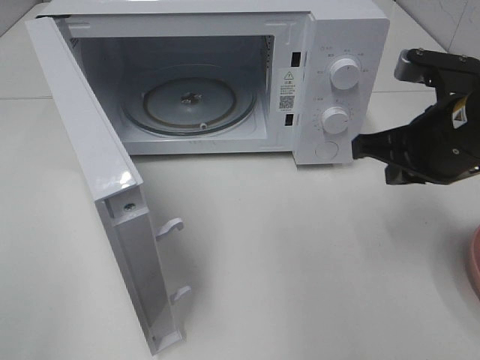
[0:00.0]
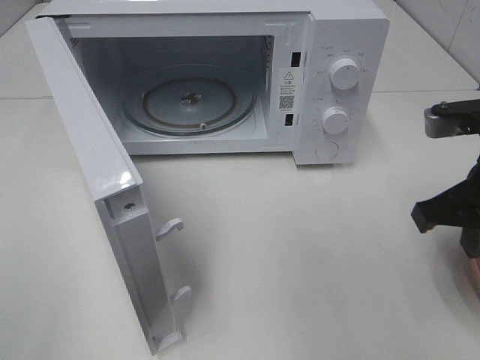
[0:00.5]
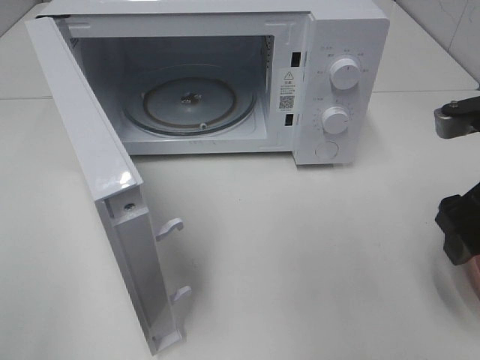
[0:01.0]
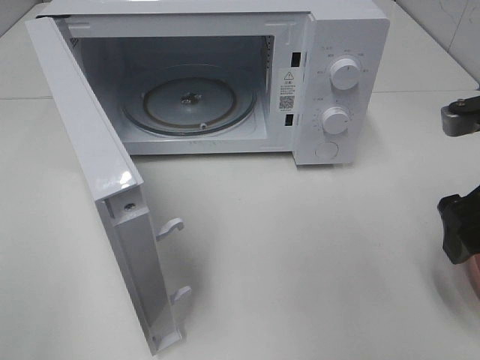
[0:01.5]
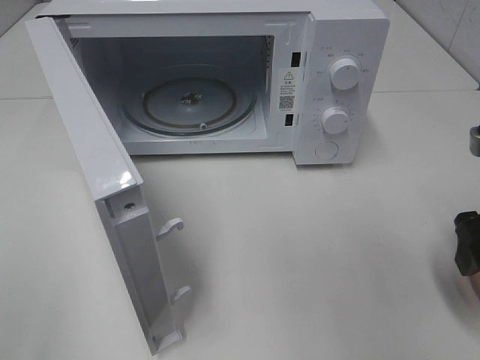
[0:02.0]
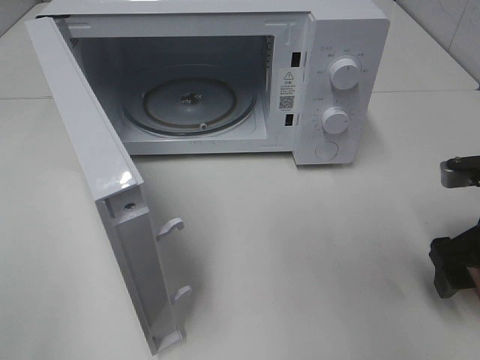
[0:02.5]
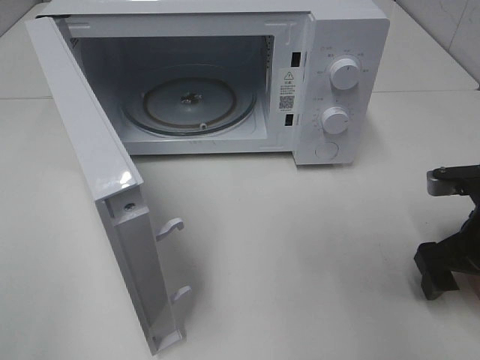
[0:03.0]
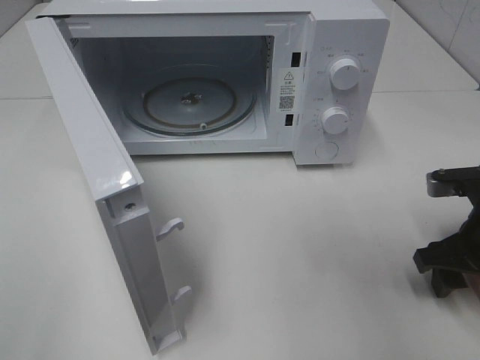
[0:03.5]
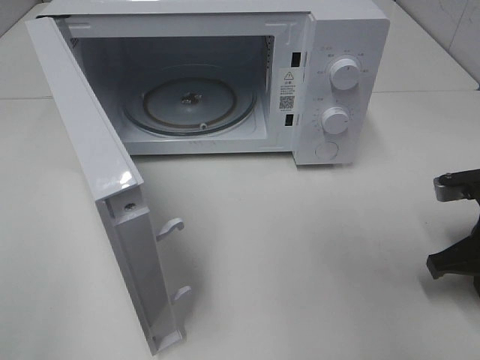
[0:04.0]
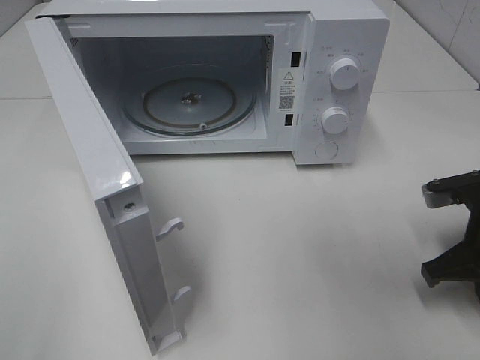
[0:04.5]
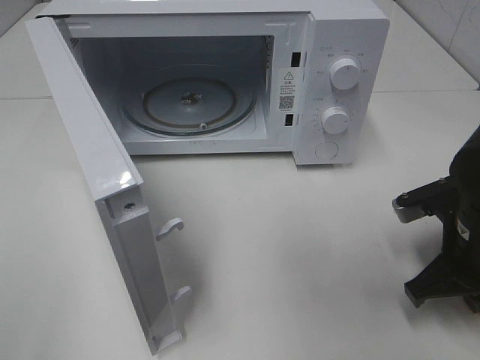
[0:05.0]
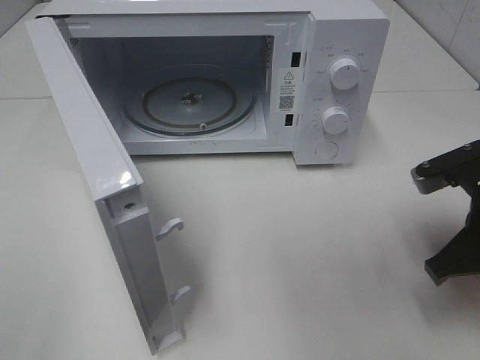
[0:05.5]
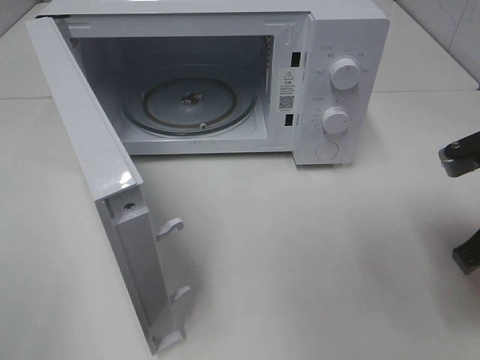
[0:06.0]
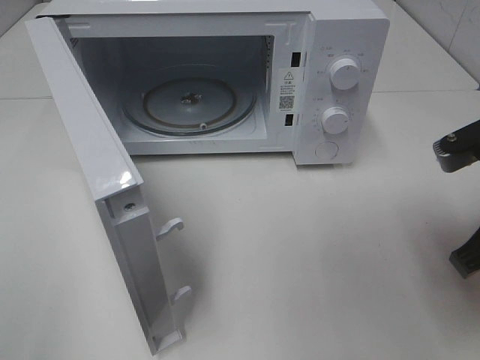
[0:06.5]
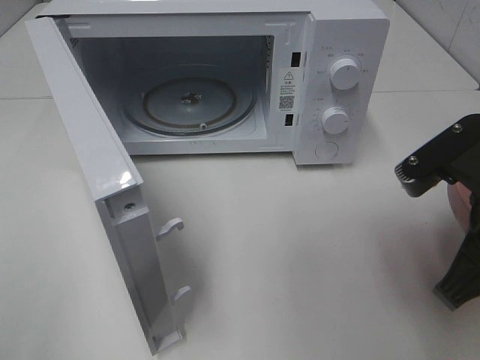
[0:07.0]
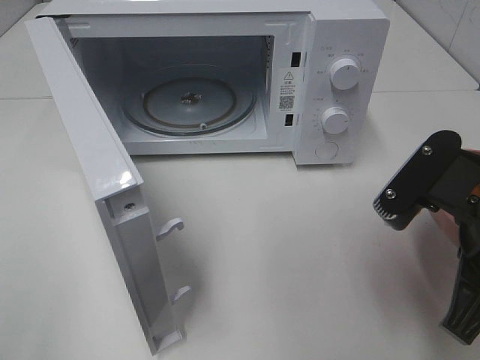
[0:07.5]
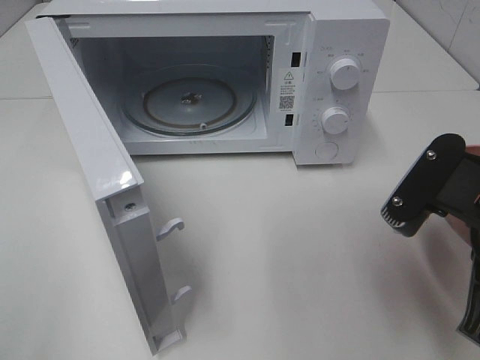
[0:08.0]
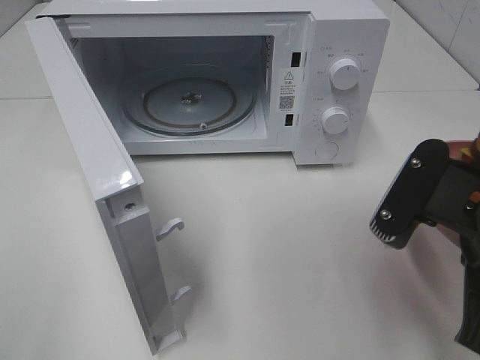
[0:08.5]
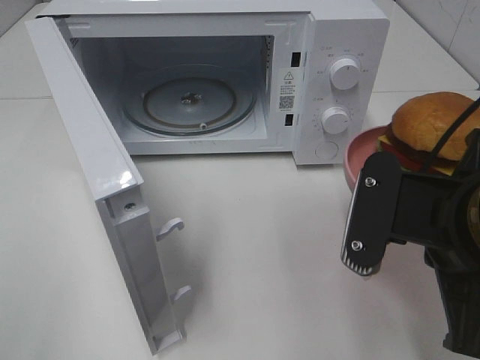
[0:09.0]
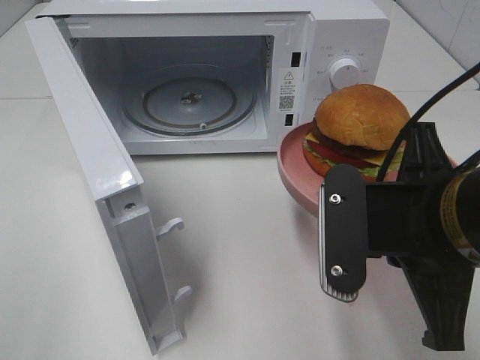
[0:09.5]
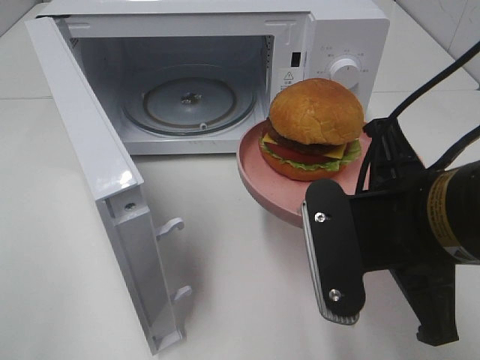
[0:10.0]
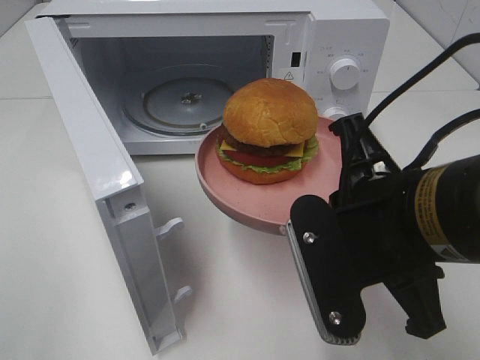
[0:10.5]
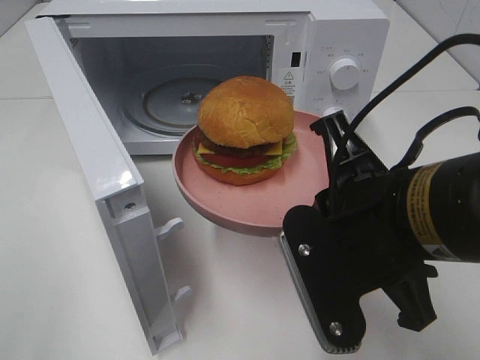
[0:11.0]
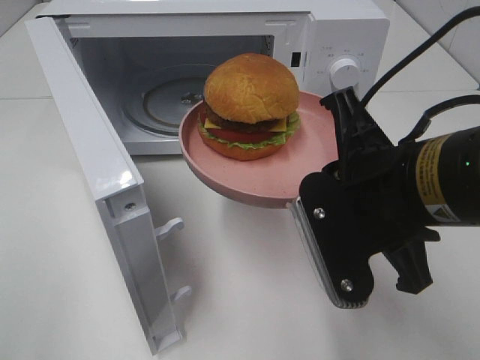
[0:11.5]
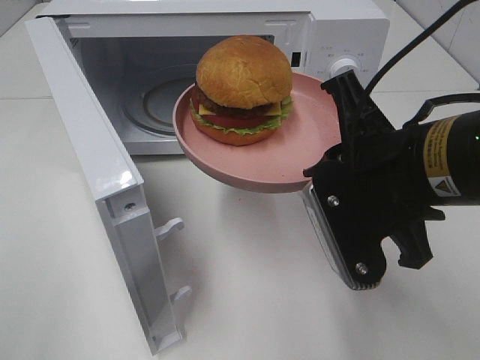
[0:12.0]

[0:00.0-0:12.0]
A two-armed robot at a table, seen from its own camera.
Task of the whole recording: Heat the burger.
Step, 0.0 to 4.0 s: Right hand: grab the plate with the hamburger.
0.0 to 2.0 s: The right gripper heads to the right and backward, covering approximately 10 cm, and opens up.
2.0 to 4.0 s: The right gripper travels downward by about 10 cm, and closes its fingers.
4.0 to 6.0 s: The right gripper travels upward by roughly 10 cm.
6.0 to 8.0 s: The right gripper is displaced to the left and backward by approximately 10 cm.
8.0 to 10.0 s: The right gripper heads to the left, covering about 5 cm.

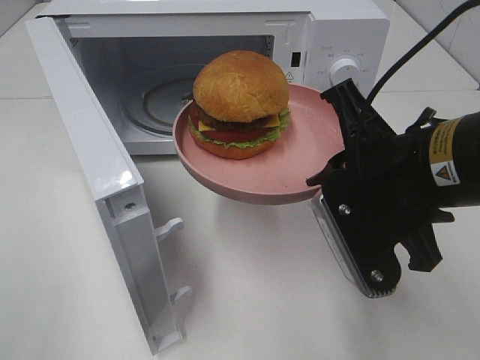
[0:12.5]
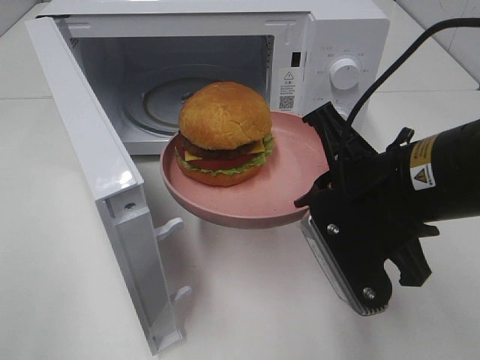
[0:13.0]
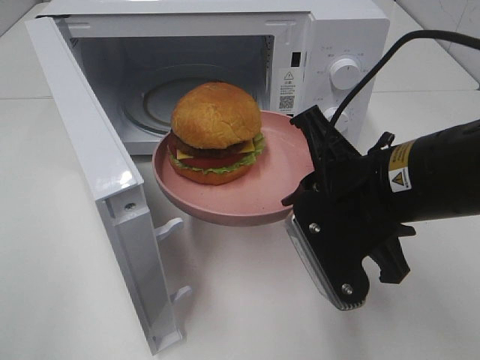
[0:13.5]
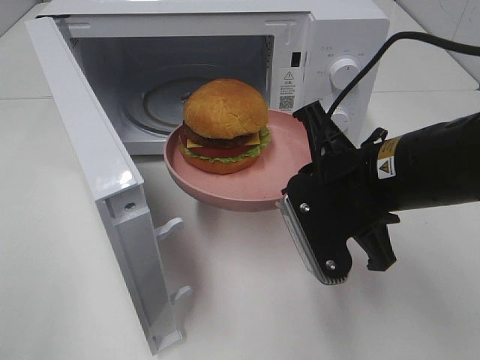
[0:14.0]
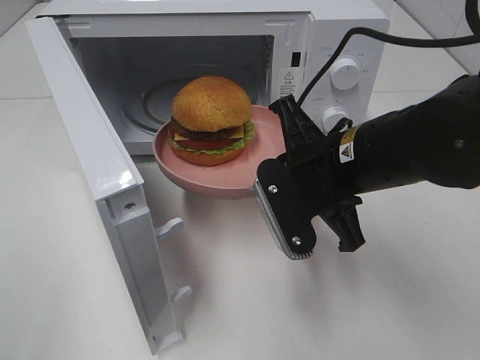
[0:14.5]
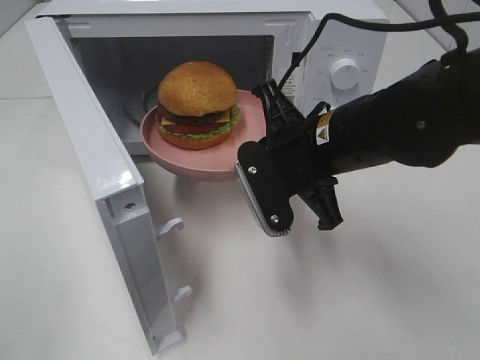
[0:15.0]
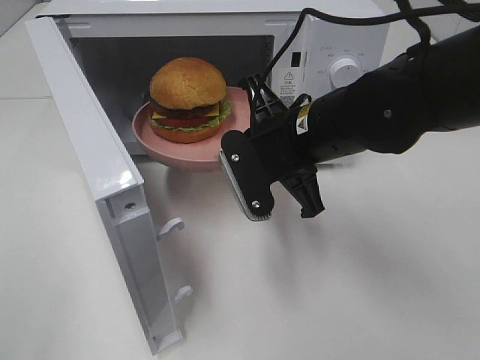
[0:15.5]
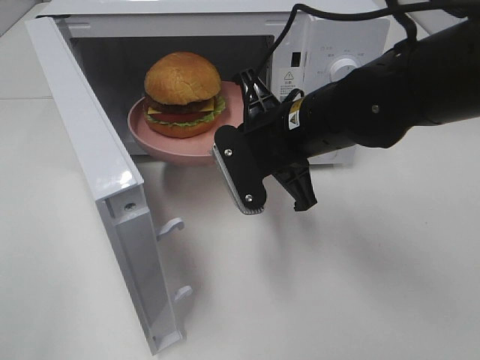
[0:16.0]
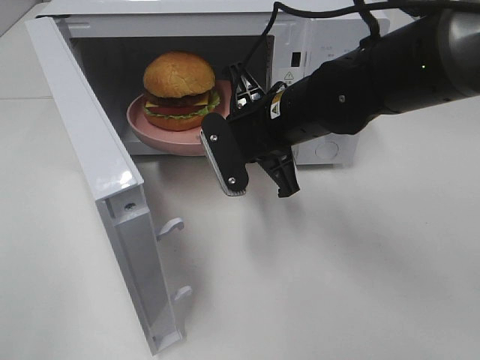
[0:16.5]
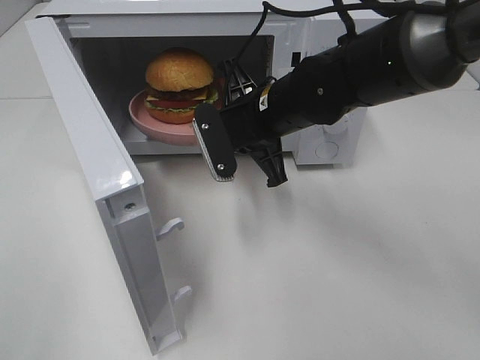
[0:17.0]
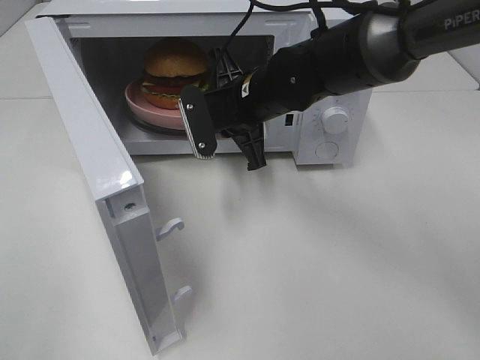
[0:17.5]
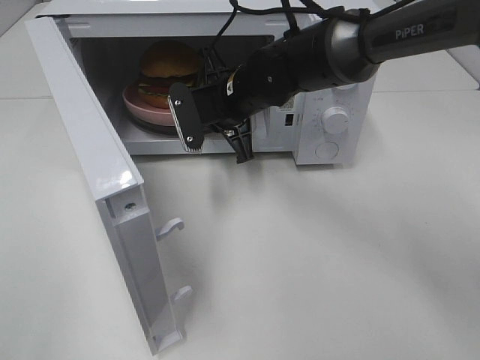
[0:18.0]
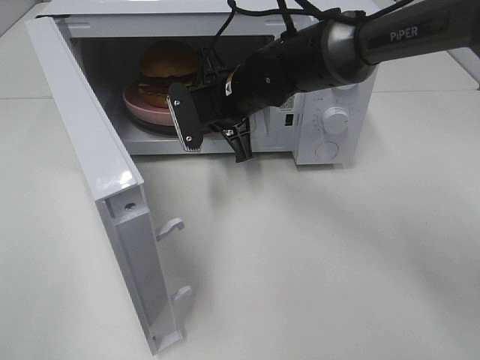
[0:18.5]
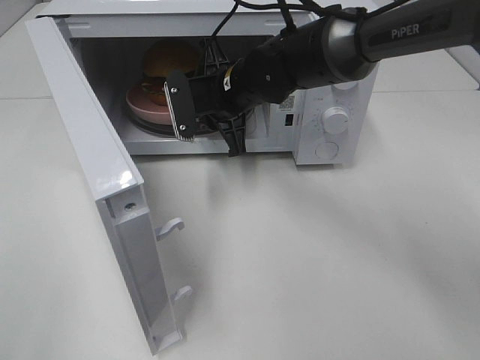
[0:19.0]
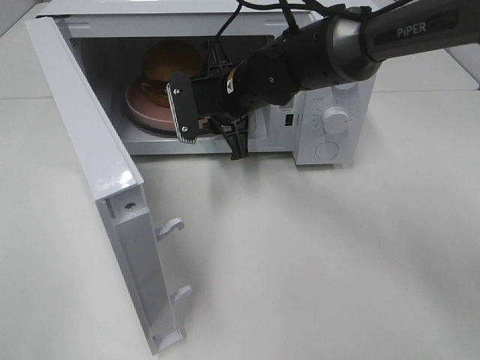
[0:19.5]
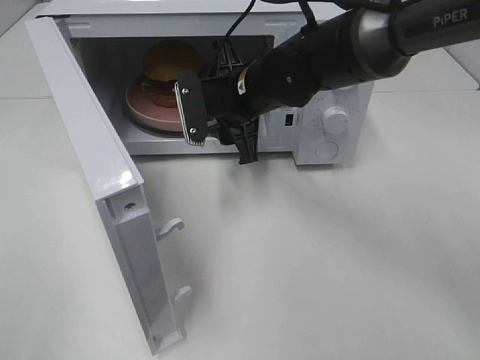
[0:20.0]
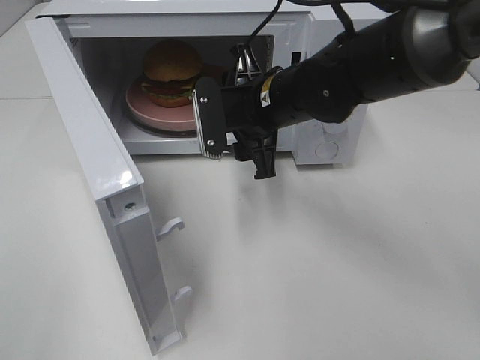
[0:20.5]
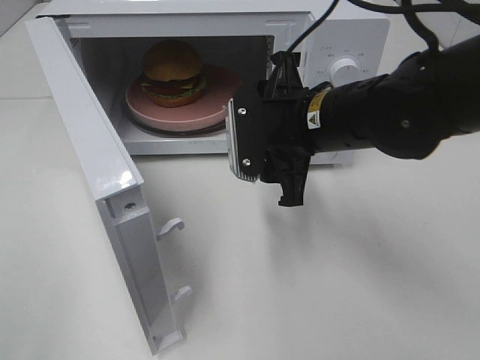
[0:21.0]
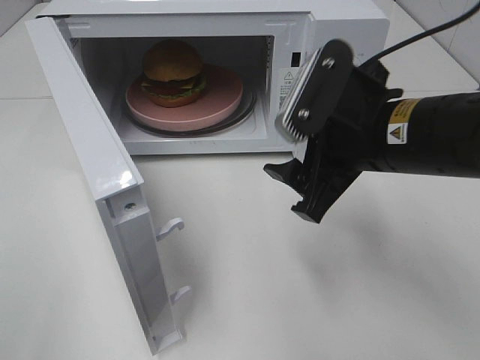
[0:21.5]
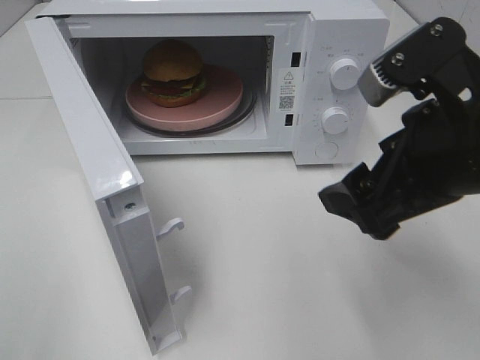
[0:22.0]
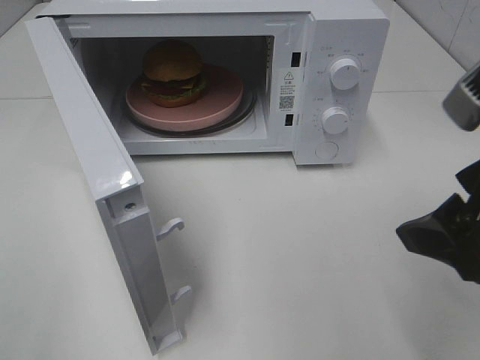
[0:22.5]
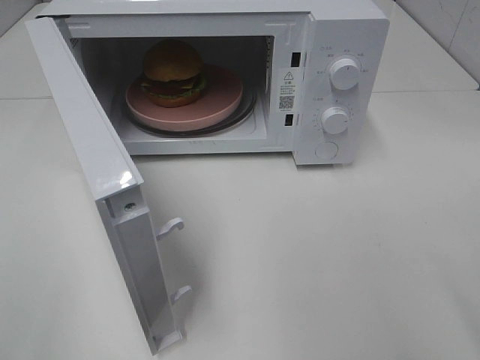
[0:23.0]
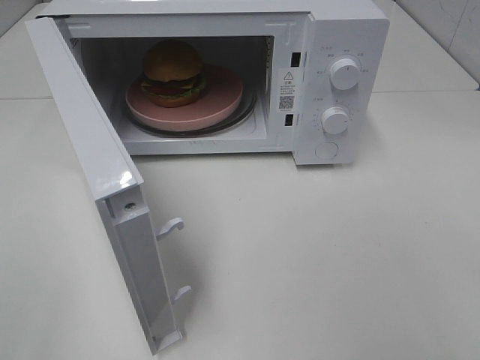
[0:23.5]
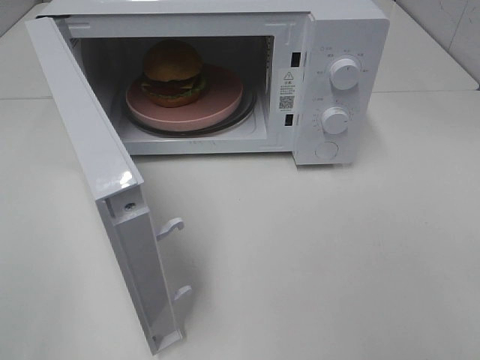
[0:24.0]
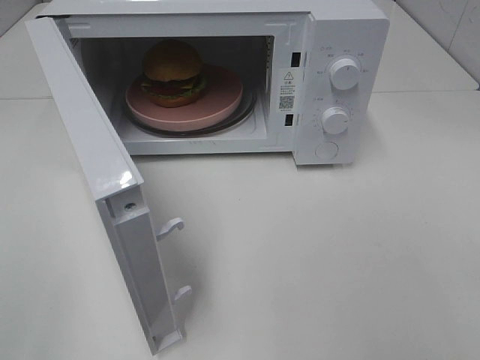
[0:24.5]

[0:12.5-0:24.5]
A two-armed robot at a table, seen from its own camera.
Task of the whole recording: Heat the burger.
Step, 12.5 to 19.5 s: Right hand: place the plate in the microwave.
12.5 to 14.5 s: The right gripper goes approximately 5 cm forward.
14.5 to 16.5 s: The right gripper goes approximately 5 cm forward.
16.5 to 18.5 s: The right gripper moves forward, approximately 10 cm.
18.5 to 20.5 s: The right gripper is displaced backward by roughly 5 cm, and opens its fingers.
20.5 to 22.5 s: The right gripper heads backward, to the right and upward, covering approximately 30 cm.
22.5 to 24.5 s: The right gripper goes about 15 cm backward and to the right.

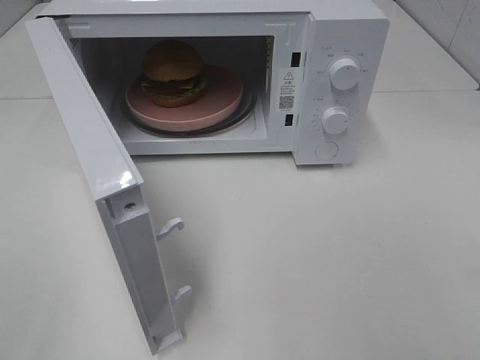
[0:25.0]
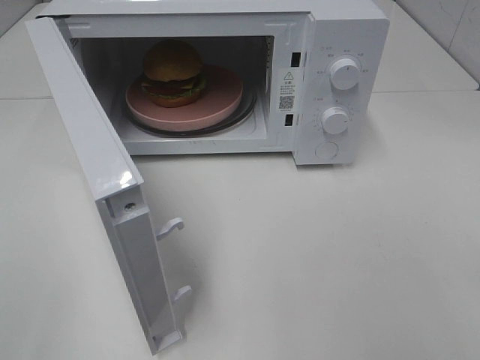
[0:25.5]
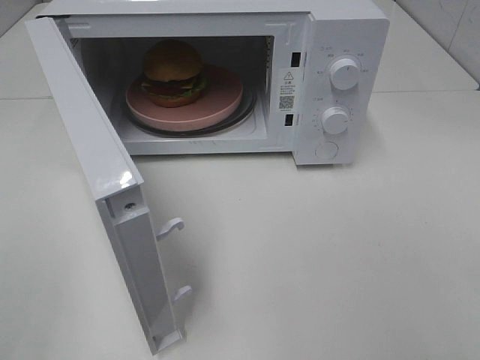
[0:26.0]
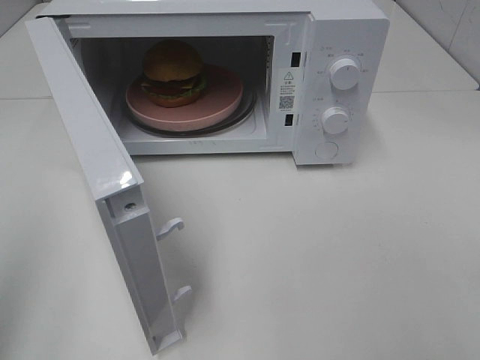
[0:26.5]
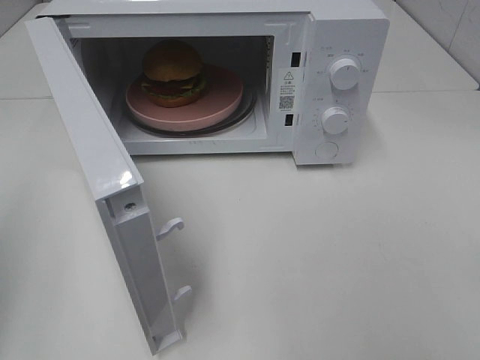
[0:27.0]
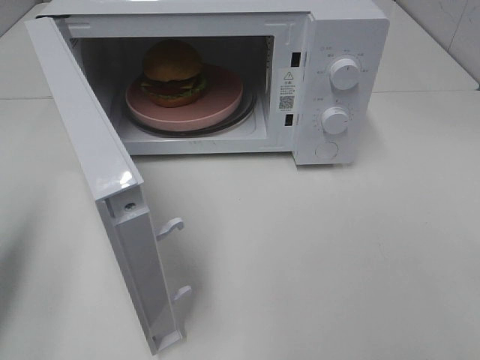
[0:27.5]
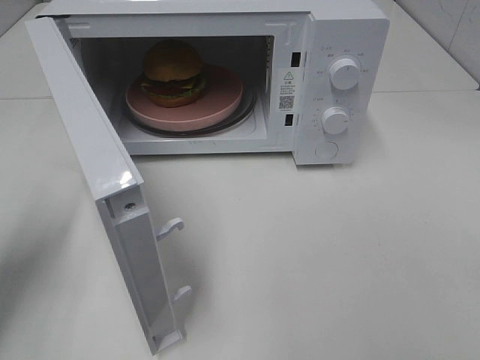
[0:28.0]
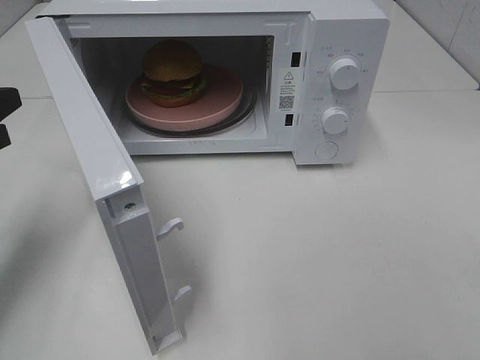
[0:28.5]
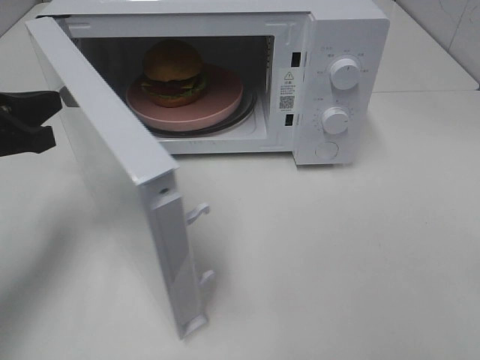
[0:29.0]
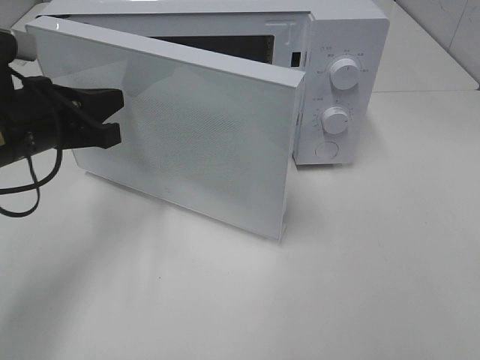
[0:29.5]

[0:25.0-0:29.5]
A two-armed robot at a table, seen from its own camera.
Task of the whole recording: Heat the burger.
27.0 to 29.5 s: The left gripper heads forward, to the right and downward, covering roughly 20 cm.
